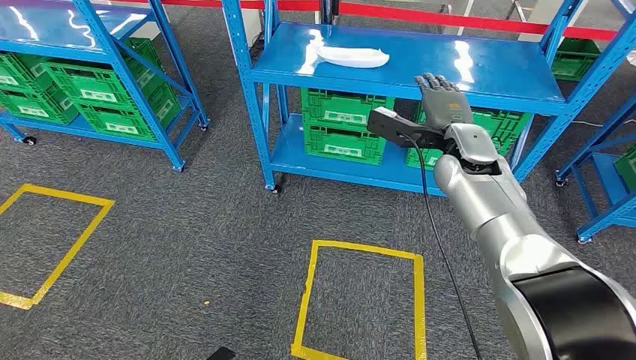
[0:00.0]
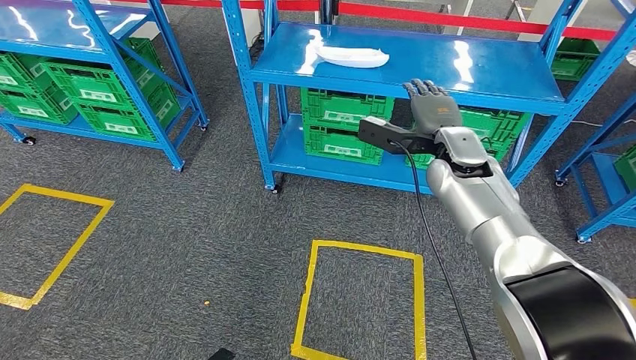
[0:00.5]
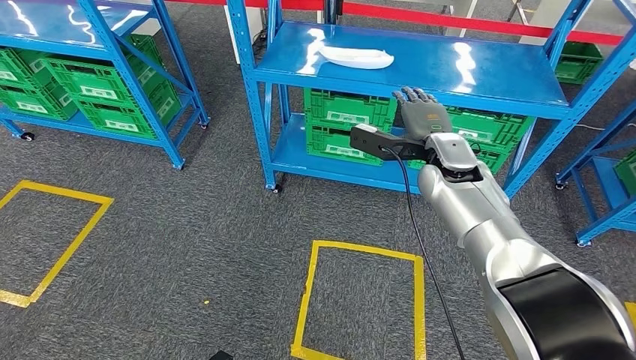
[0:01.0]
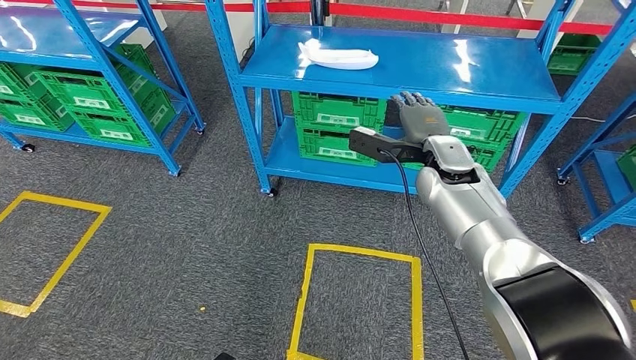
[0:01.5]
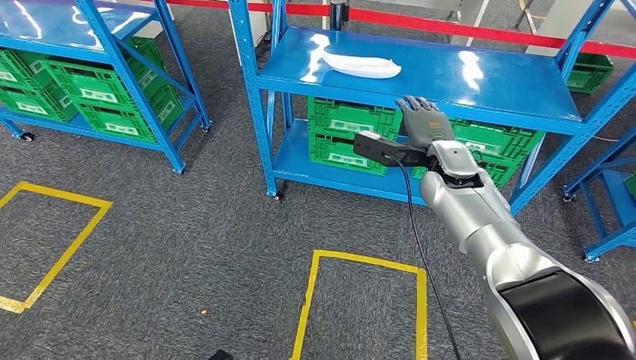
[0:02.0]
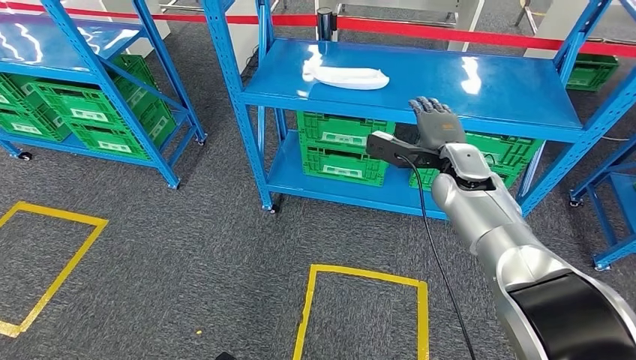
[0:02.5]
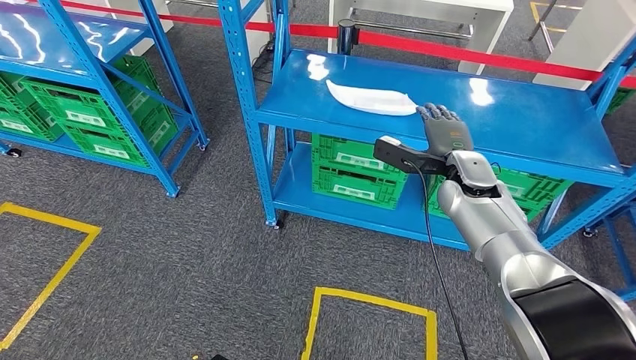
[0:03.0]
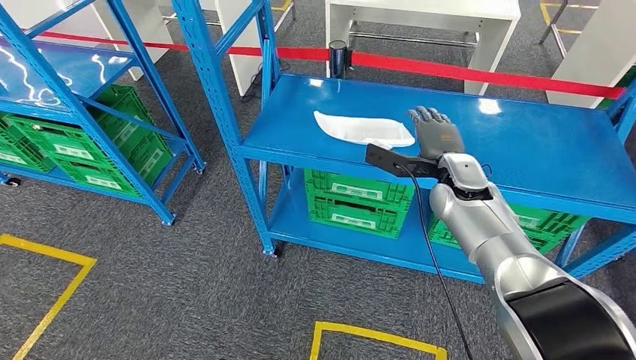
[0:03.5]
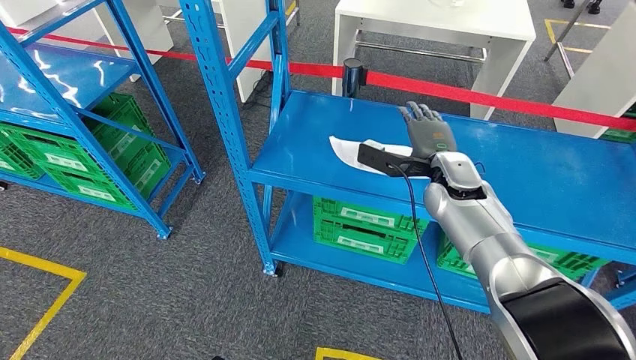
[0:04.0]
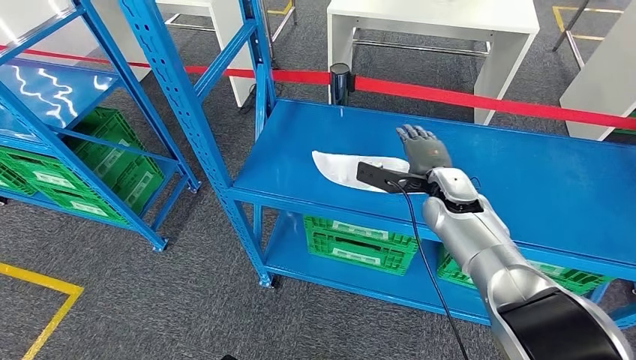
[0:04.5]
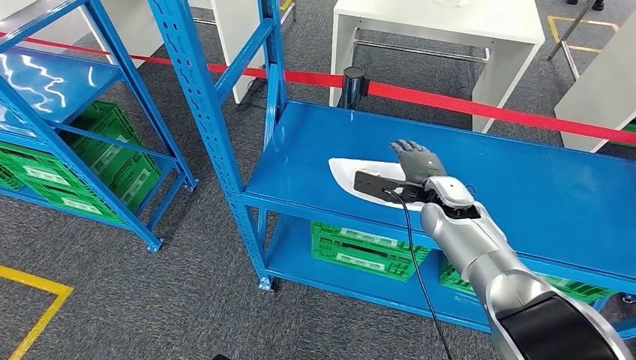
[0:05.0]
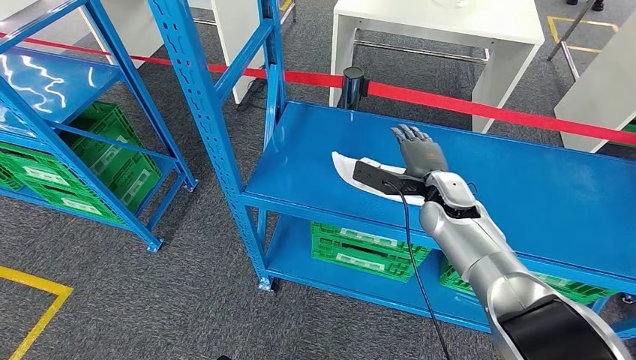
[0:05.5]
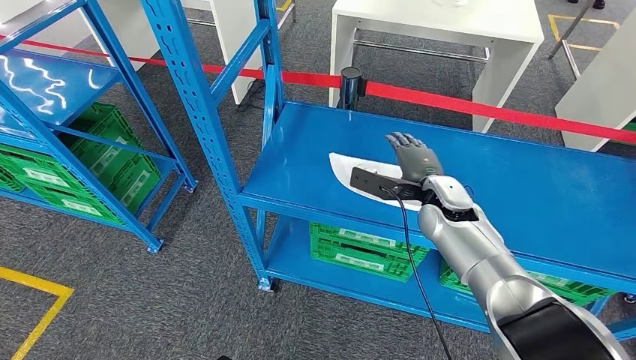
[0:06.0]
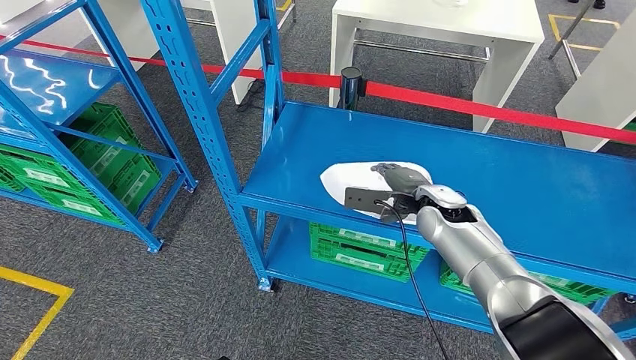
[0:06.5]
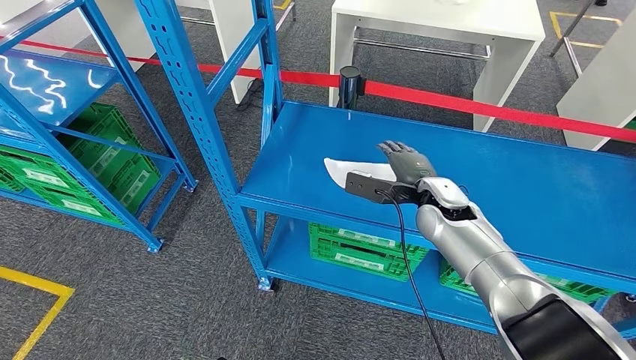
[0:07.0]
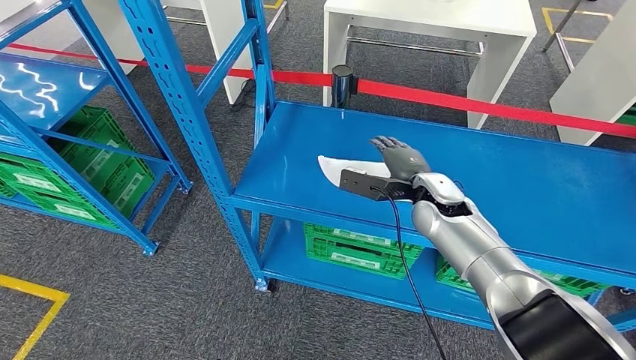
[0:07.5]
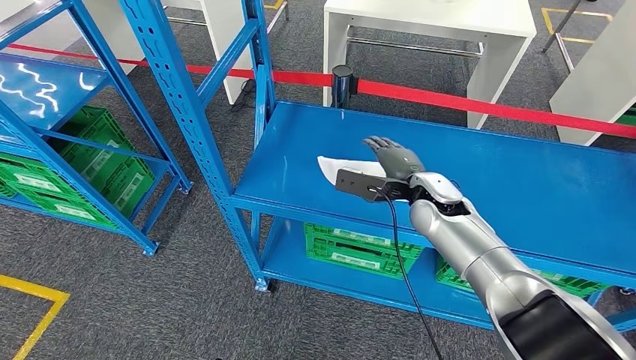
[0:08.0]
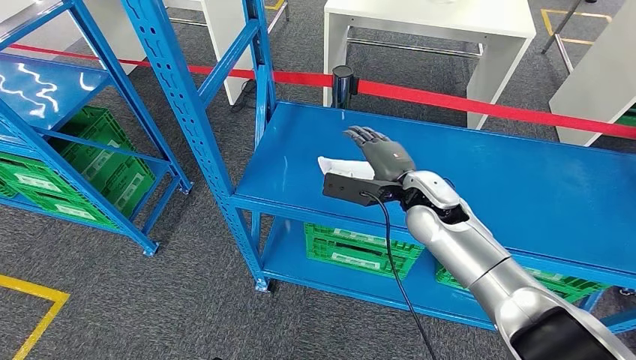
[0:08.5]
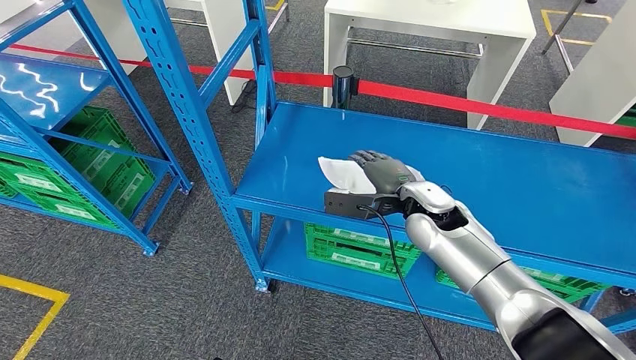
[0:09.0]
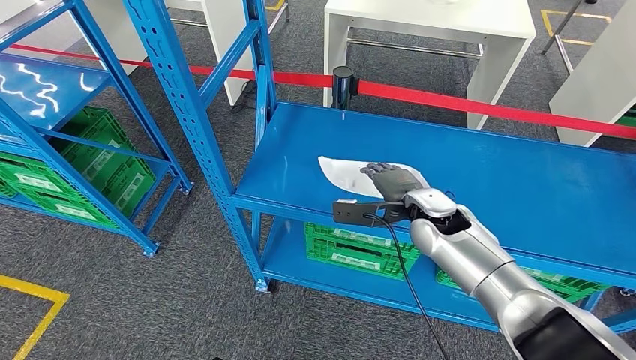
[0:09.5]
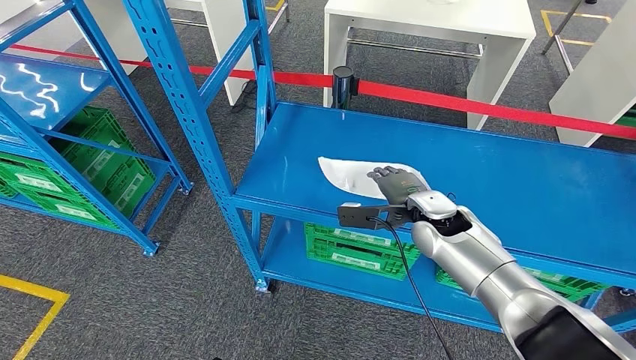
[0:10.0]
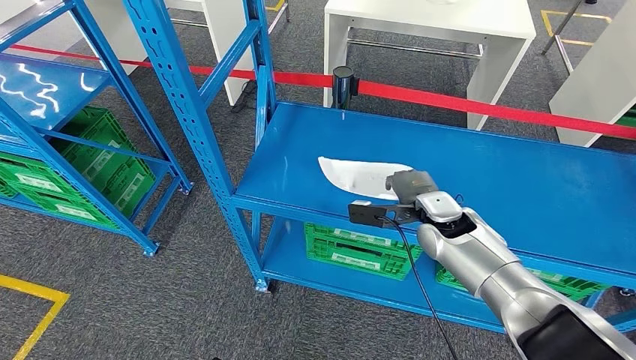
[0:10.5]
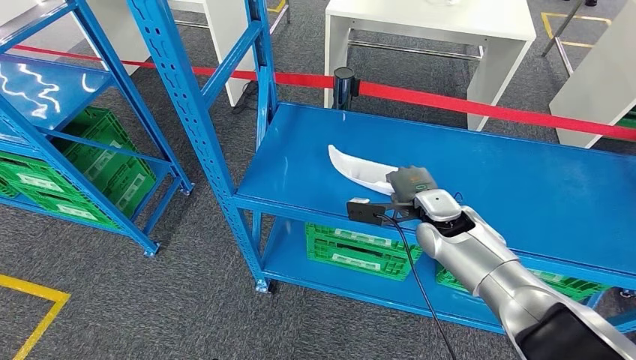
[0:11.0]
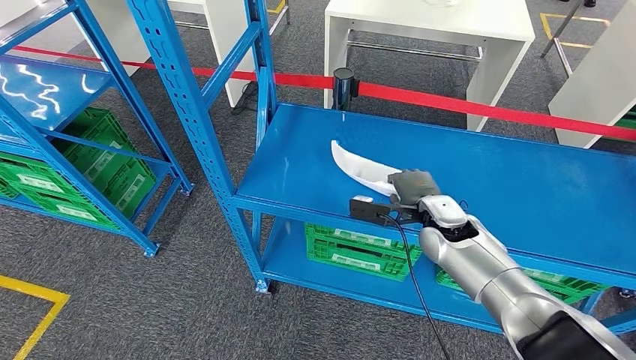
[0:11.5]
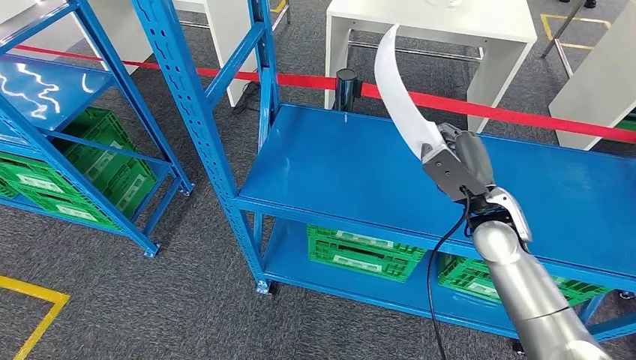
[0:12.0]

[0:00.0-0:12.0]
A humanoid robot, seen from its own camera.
0:08.0 to 0:10.0: The hands make only small movements.
0:10.0 to 0:12.0: The right hand travels to the right by about 5 cm.

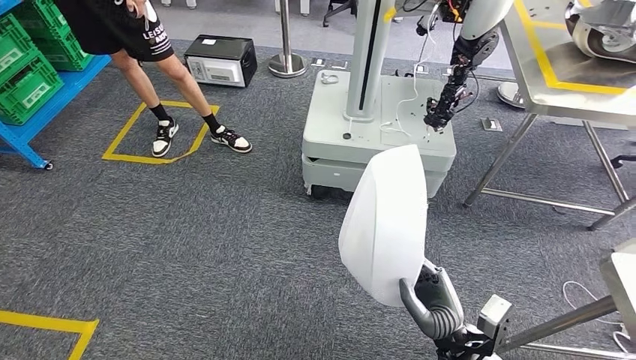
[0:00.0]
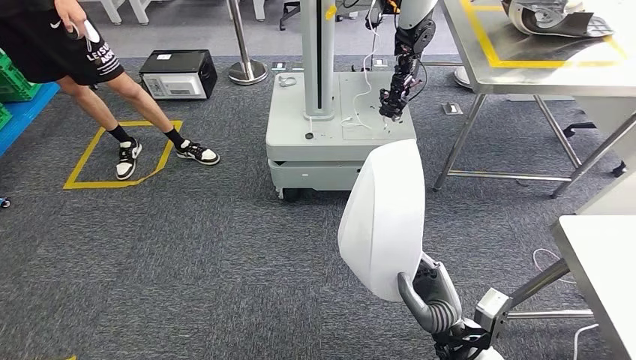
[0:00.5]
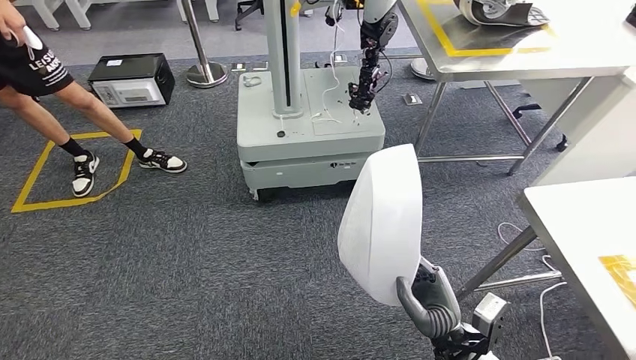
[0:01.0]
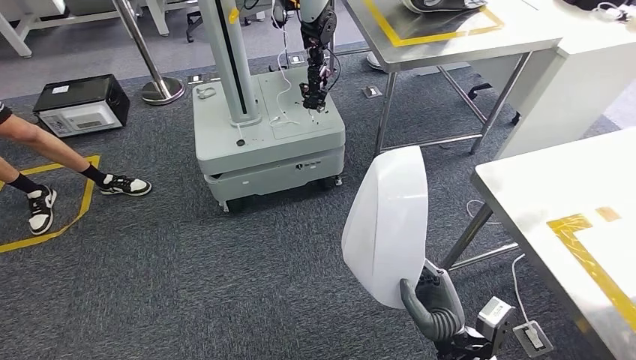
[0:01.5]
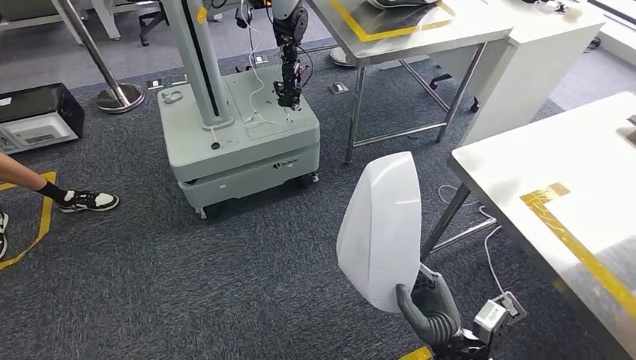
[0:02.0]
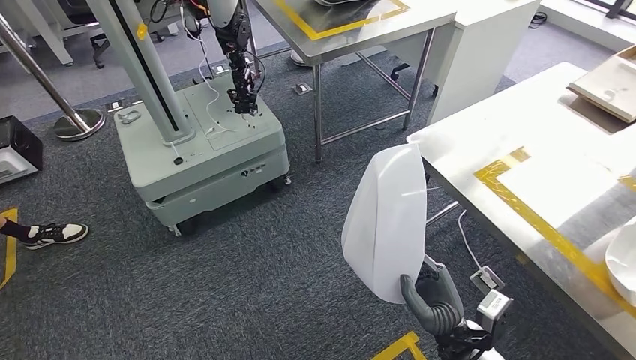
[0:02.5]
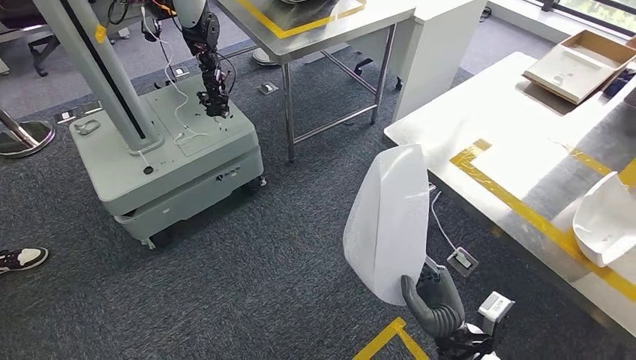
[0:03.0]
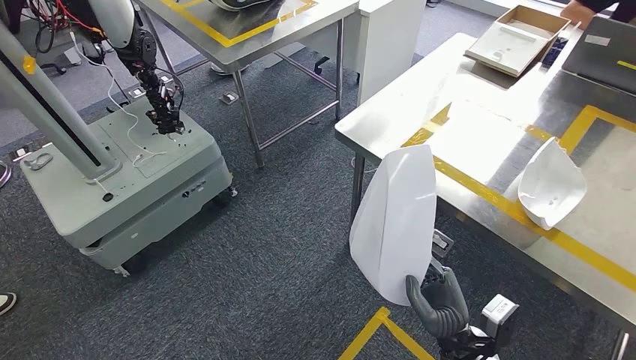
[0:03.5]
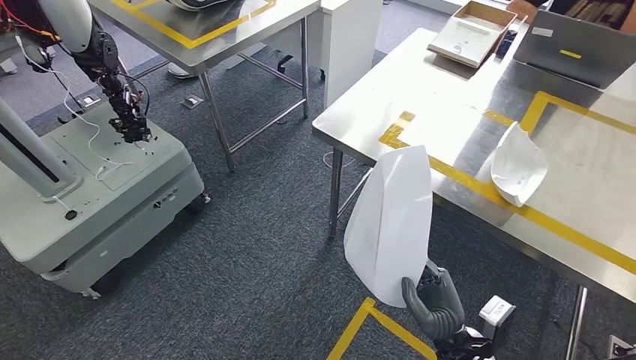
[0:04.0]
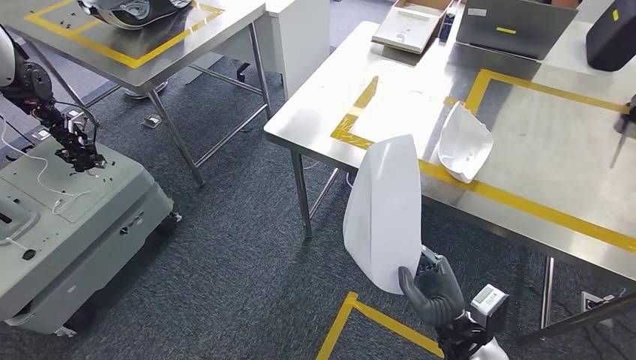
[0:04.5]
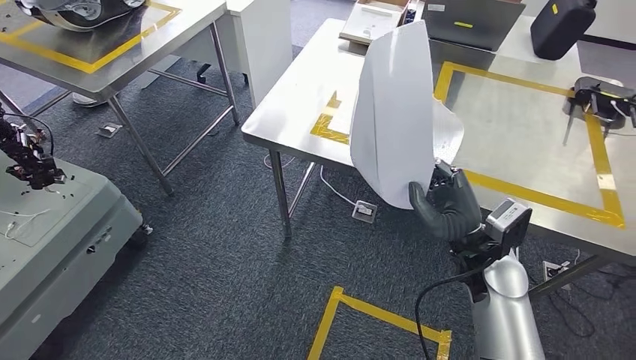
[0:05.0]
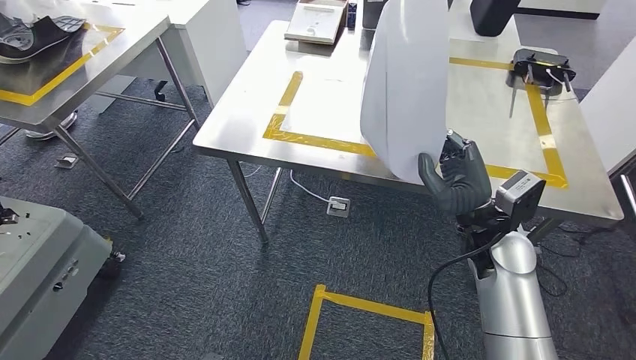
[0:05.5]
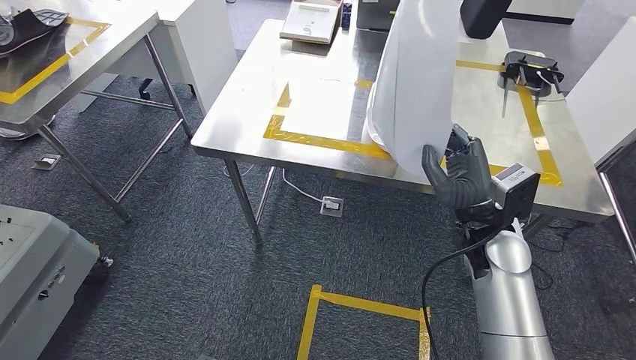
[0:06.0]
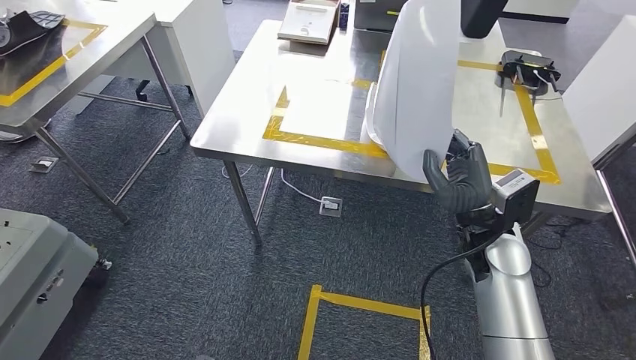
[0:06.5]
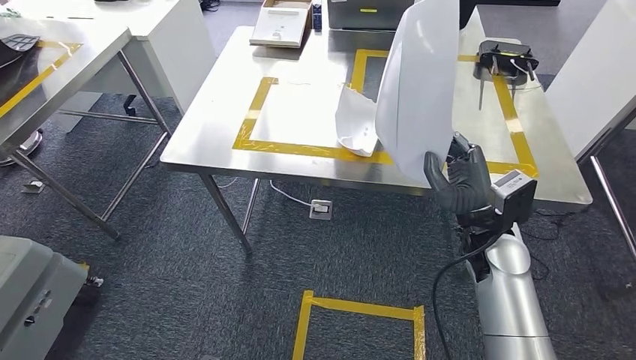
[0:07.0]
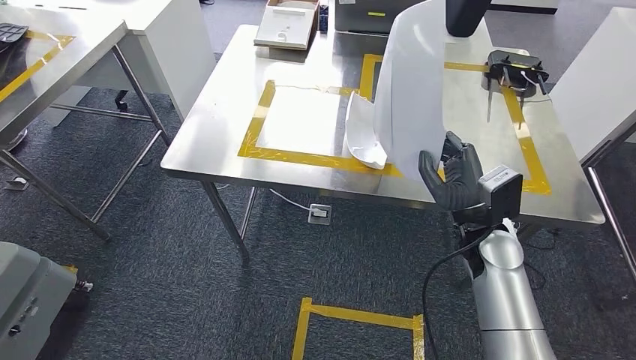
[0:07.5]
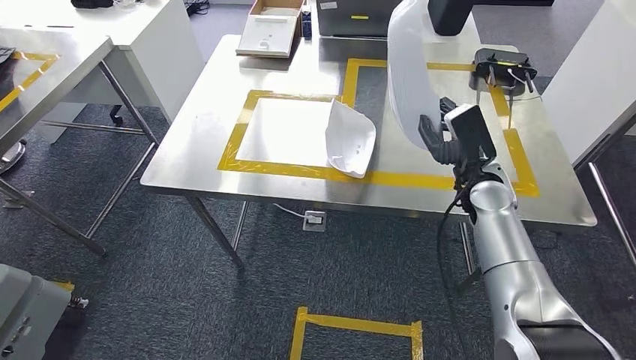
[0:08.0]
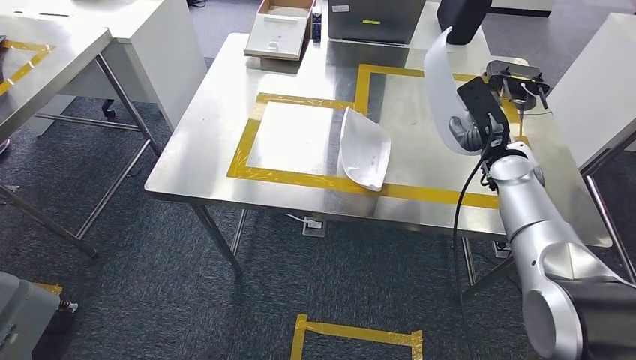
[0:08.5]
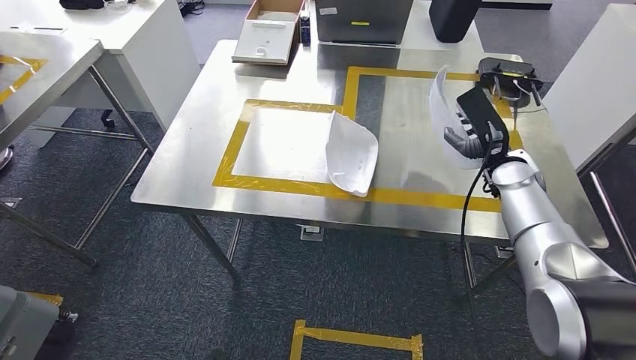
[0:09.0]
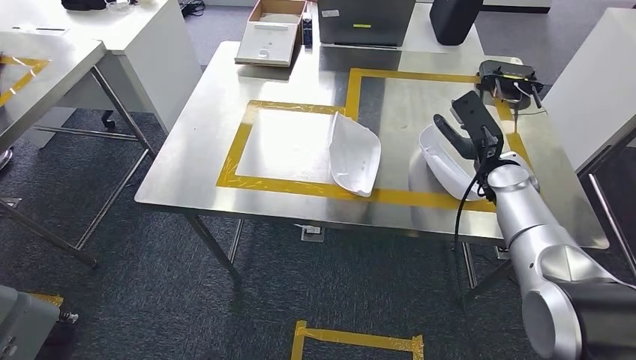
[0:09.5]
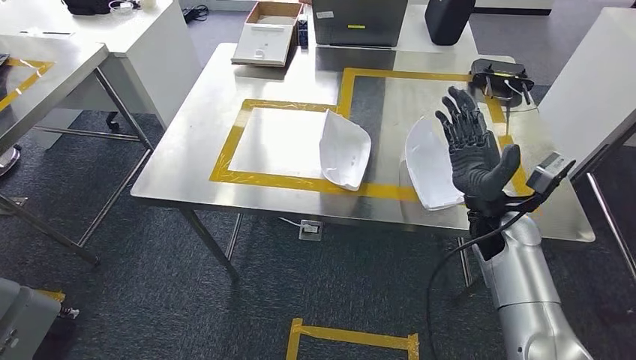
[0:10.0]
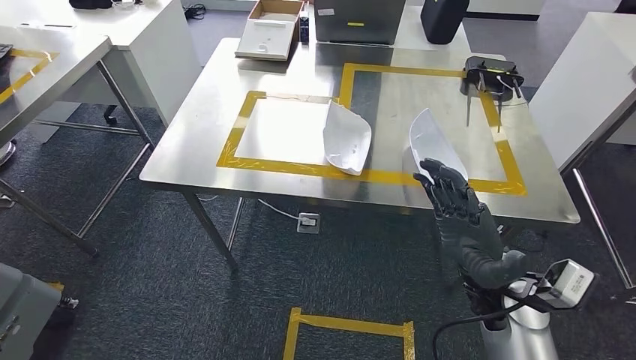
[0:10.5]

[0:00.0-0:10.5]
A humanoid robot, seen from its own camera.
Step, 0:00.0 to 0:06.5: Move the small parts to the workbench.
Step, 0:07.0 to 0:10.0: Insert the small parts into the corresponding slots on the workbench.
